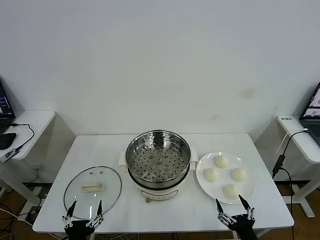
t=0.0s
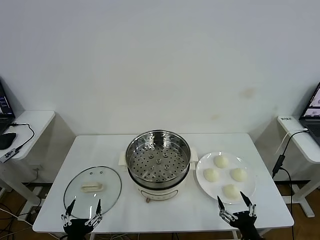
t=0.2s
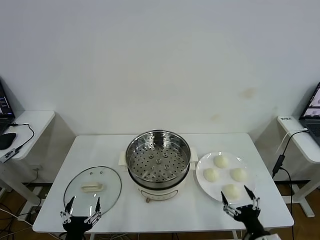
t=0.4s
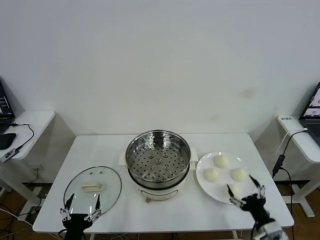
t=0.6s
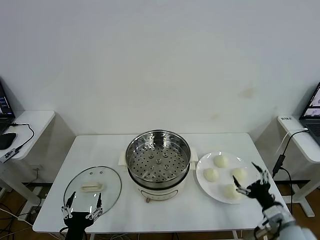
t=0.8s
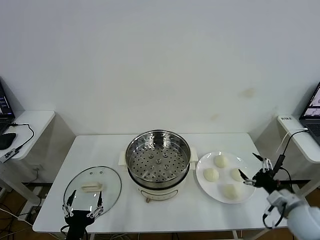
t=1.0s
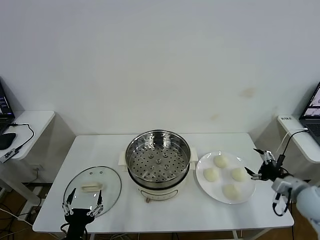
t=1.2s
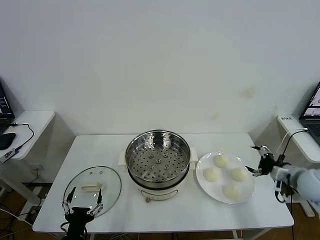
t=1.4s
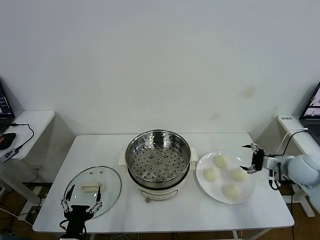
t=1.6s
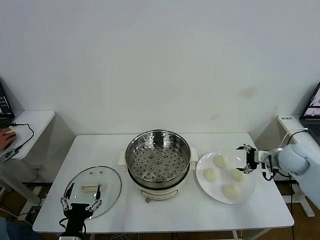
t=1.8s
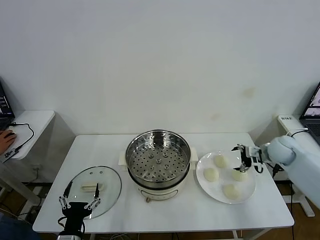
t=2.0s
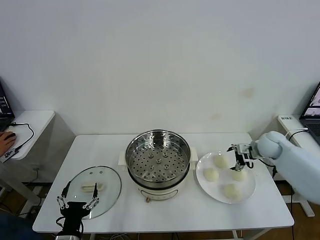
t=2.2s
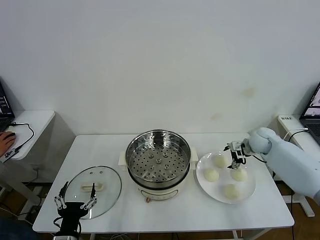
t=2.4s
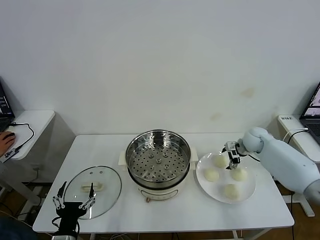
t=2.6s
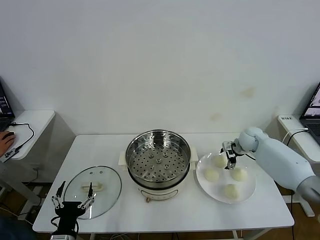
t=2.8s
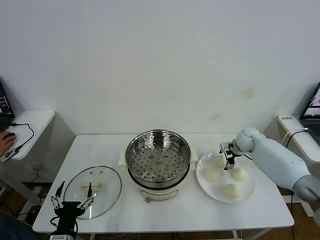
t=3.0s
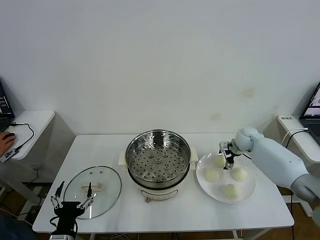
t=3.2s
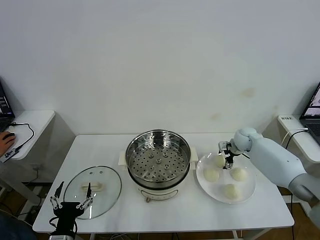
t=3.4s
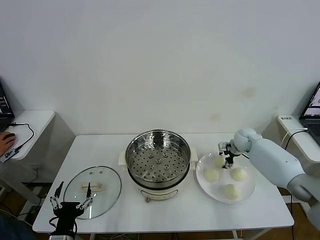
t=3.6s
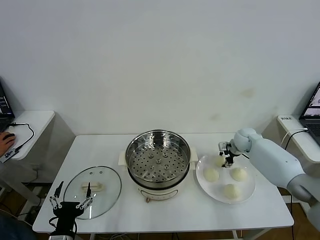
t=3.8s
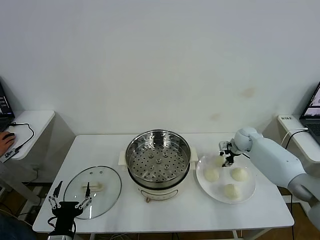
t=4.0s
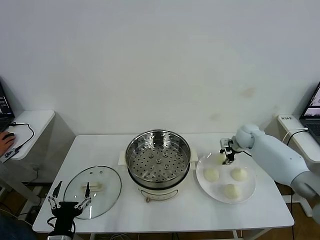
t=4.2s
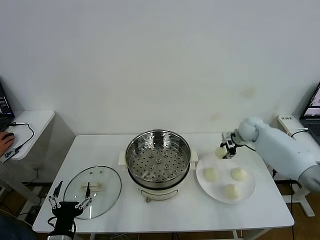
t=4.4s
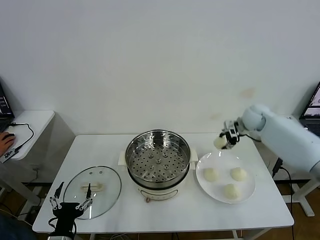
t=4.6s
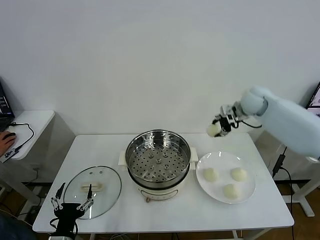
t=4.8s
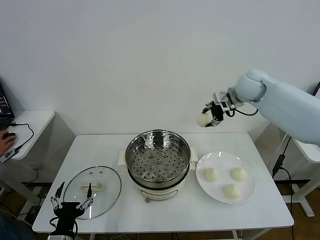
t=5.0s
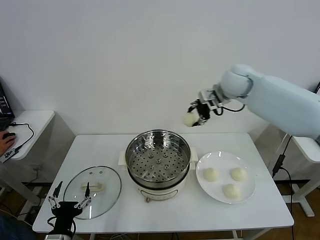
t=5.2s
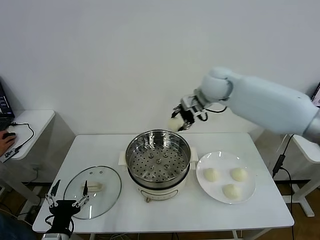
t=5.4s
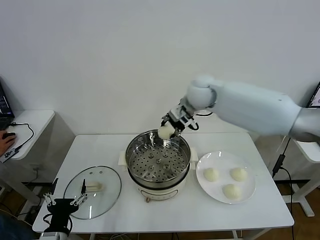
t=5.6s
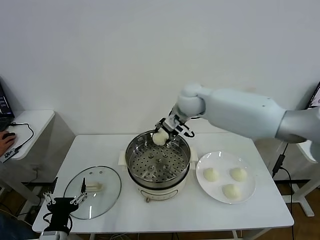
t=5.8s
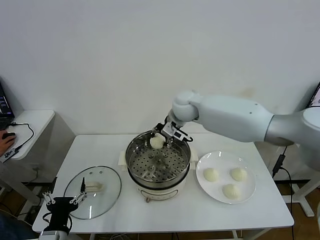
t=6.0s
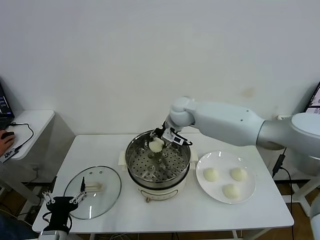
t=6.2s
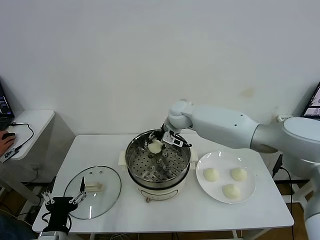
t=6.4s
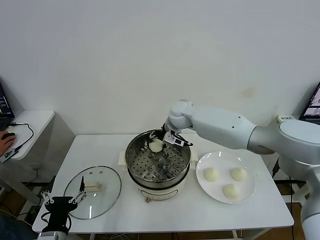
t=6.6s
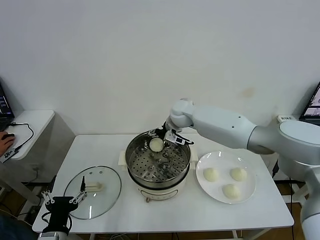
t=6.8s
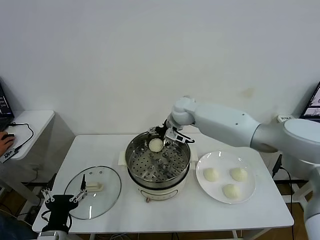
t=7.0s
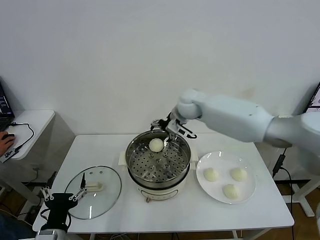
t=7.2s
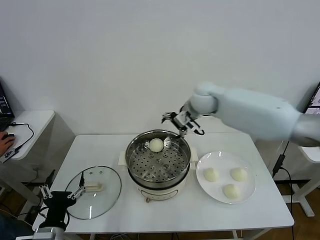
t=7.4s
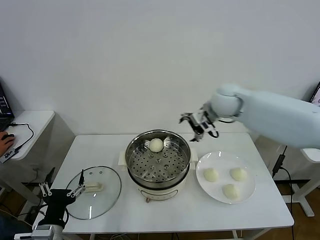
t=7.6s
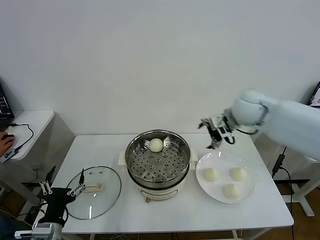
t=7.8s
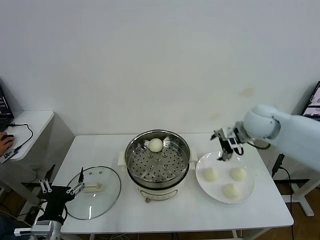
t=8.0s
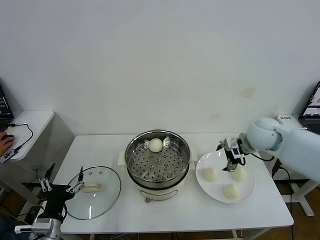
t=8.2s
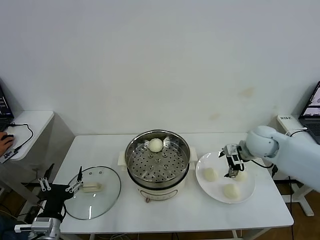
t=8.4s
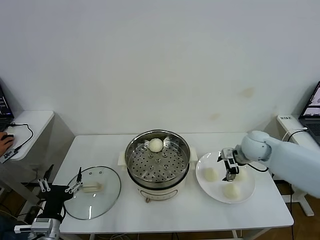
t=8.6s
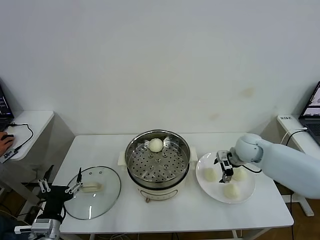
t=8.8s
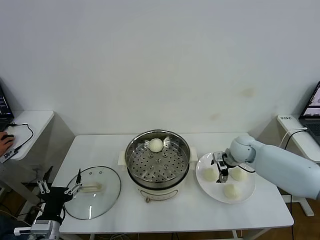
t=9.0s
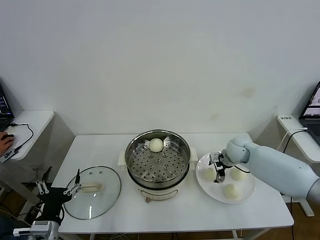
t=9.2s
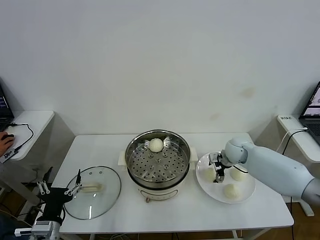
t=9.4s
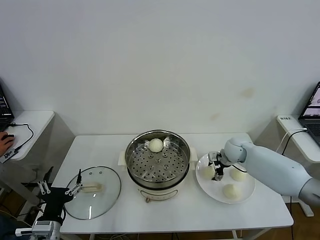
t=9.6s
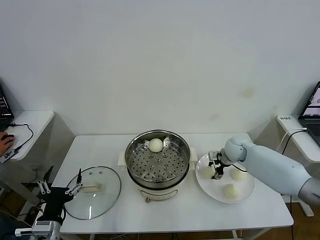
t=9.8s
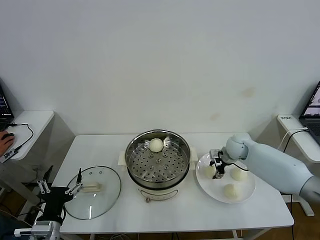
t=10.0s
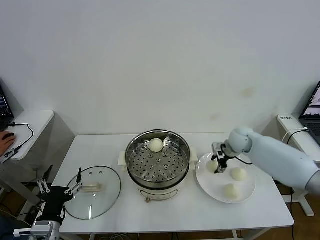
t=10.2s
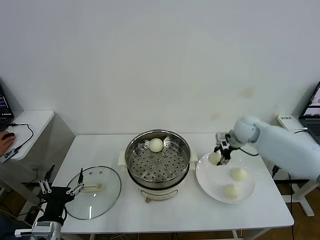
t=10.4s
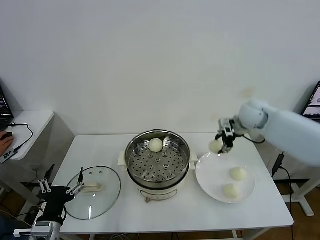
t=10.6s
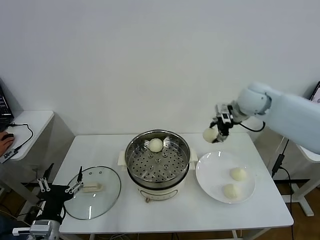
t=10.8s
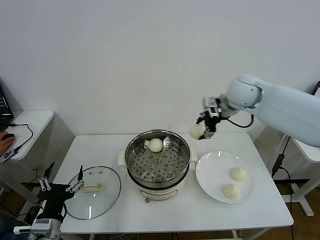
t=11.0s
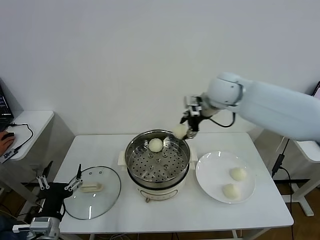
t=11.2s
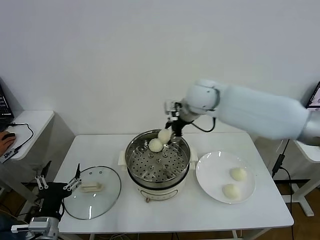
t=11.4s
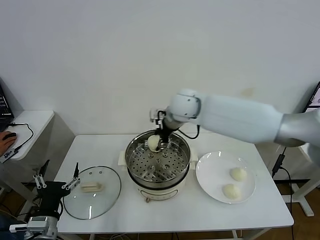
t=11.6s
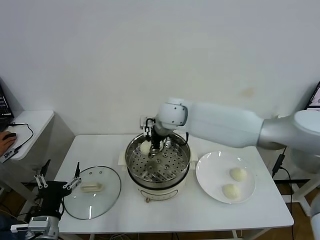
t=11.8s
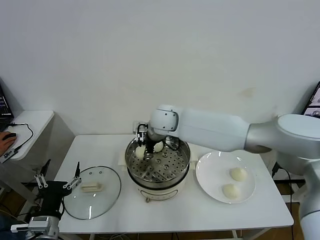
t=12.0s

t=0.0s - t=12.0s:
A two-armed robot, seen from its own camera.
Task of the whole recording: take steamed baozi put them in steamer then cover it.
Step, t=0.0s - t=4.4s: Grasp the baozi in the plate with right gripper.
Step, t=4.6s - t=6.6s: Place the baozi on the steamer with right gripper.
Step, t=6.8s - t=9.8s: Grasp the baozi in the plate with right gripper.
t=1.6s - t=3.0s: The right gripper travels forward and to the left by approximately 15 cm.
t=3.0s - t=4.4s: The right gripper travels upward by some 10 cm, and closes.
t=4.4s - t=6.0s: The right gripper is displaced to the left by some 30 cm.
t=6.0s - t=7.6s: The right gripper shifts about 15 cm to the right, and opens.
t=7.6s - t=9.0s: The right gripper is displaced downward by about 20 cm.
t=9.0s - t=10.4s: The right gripper shifts about 10 cm upward, and closes.
t=10.4s - t=12.0s: The right gripper moves to the left, about 30 cm.

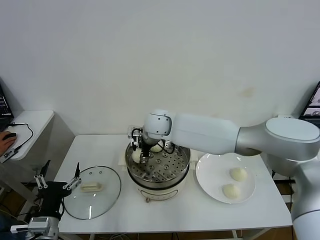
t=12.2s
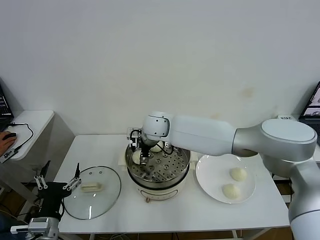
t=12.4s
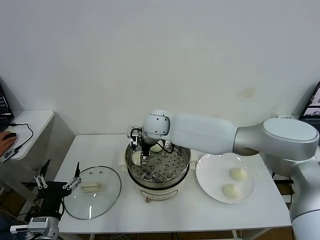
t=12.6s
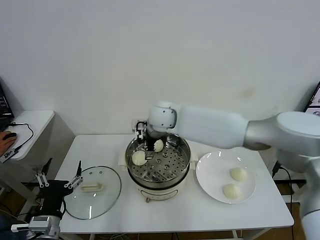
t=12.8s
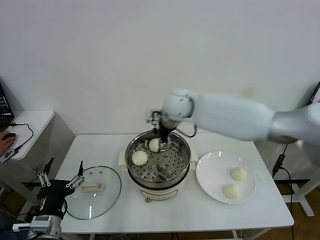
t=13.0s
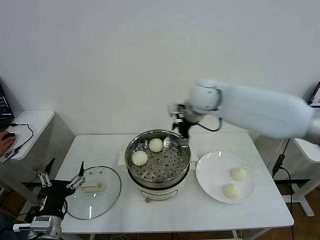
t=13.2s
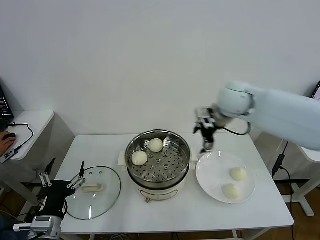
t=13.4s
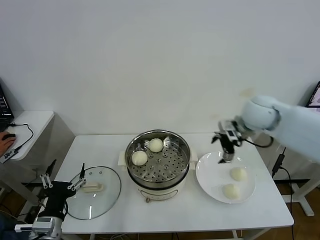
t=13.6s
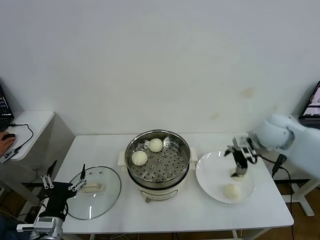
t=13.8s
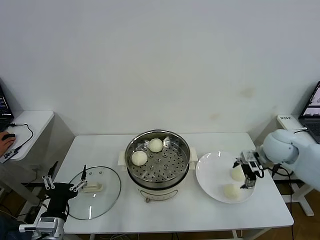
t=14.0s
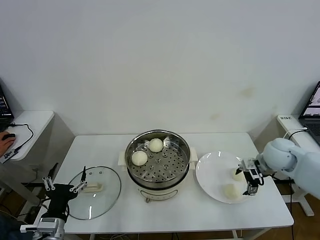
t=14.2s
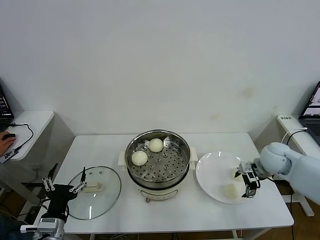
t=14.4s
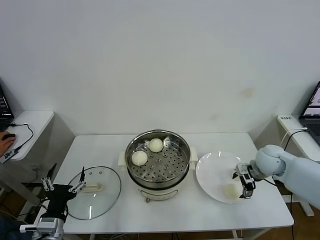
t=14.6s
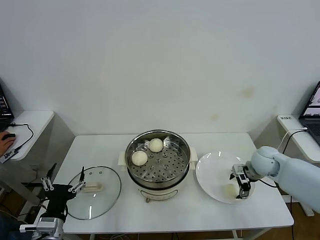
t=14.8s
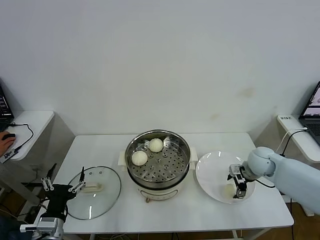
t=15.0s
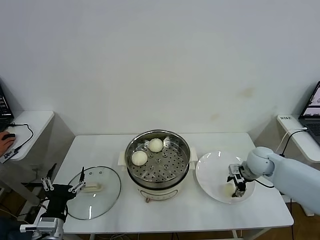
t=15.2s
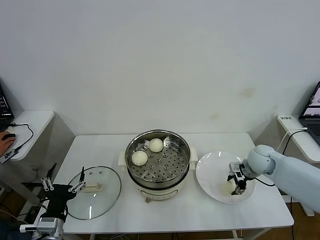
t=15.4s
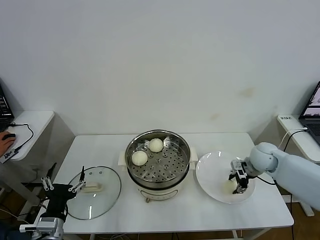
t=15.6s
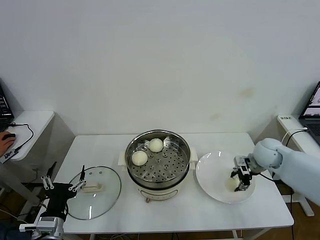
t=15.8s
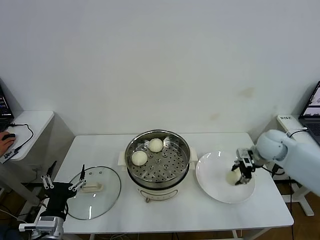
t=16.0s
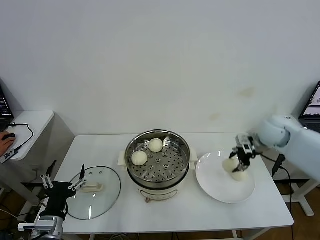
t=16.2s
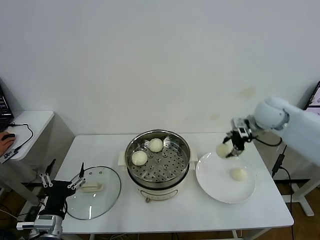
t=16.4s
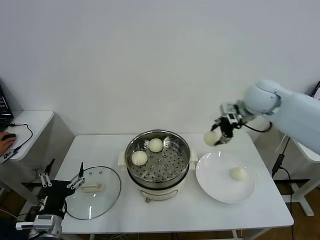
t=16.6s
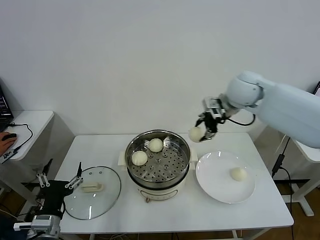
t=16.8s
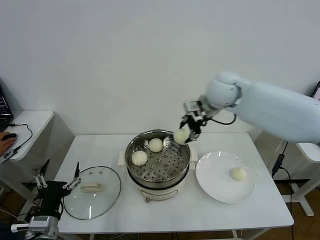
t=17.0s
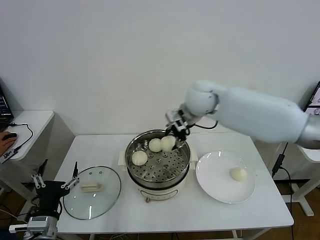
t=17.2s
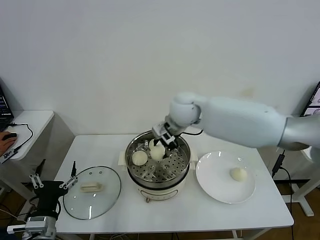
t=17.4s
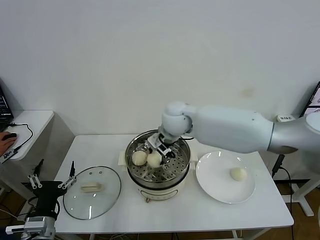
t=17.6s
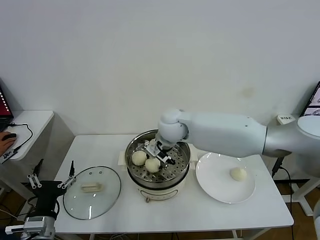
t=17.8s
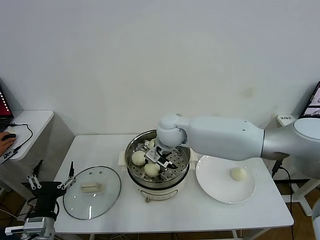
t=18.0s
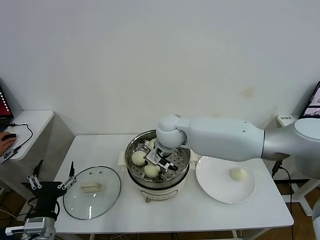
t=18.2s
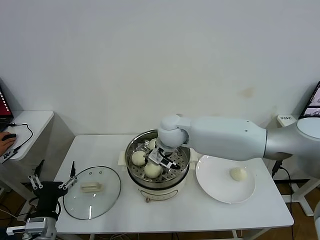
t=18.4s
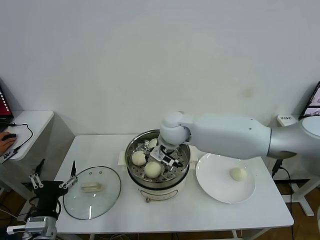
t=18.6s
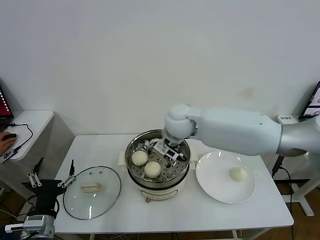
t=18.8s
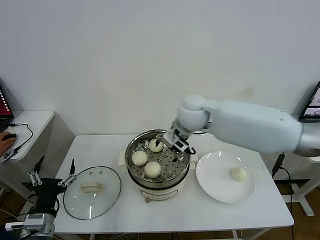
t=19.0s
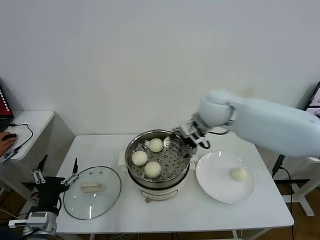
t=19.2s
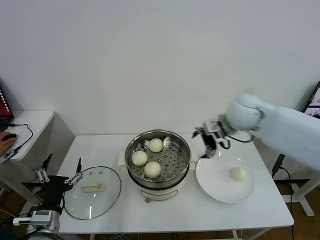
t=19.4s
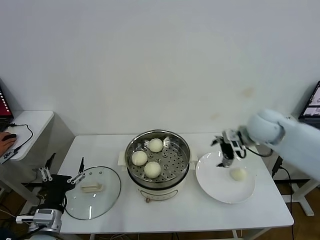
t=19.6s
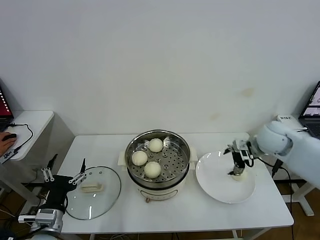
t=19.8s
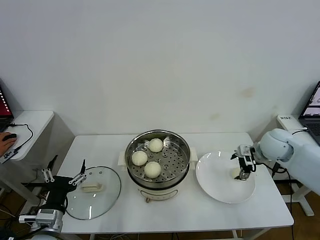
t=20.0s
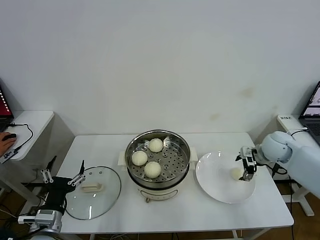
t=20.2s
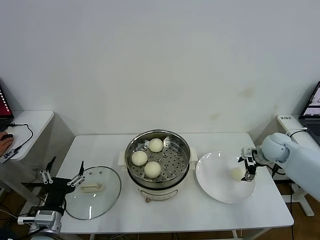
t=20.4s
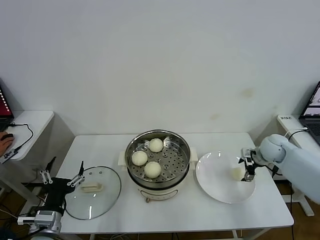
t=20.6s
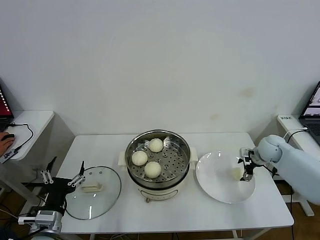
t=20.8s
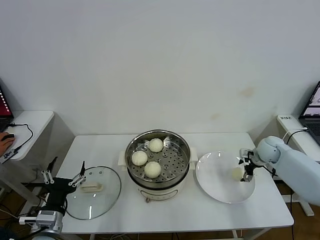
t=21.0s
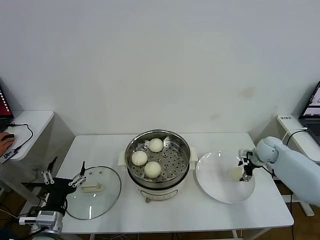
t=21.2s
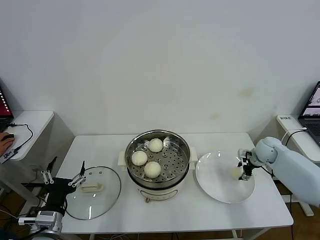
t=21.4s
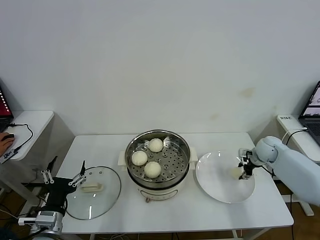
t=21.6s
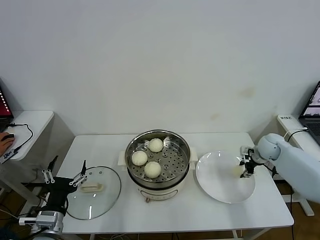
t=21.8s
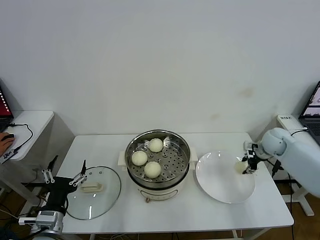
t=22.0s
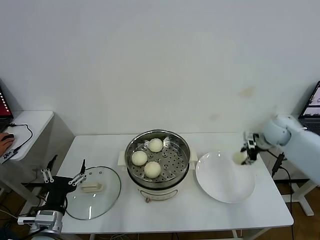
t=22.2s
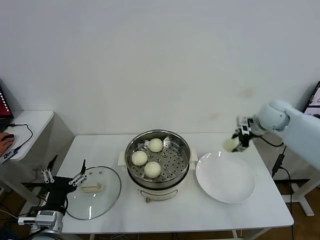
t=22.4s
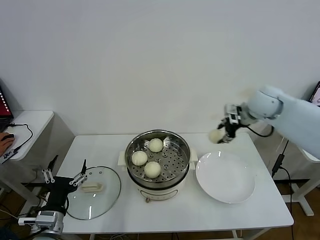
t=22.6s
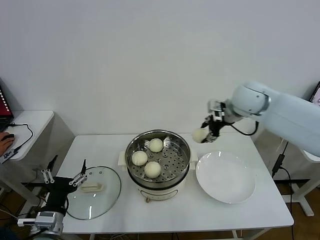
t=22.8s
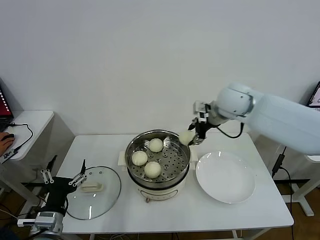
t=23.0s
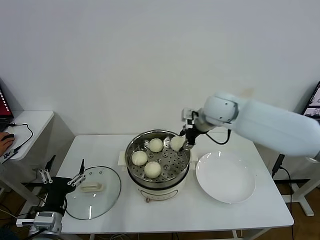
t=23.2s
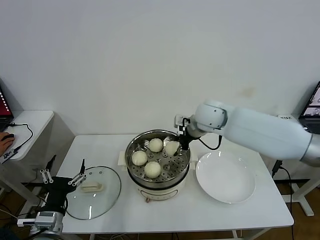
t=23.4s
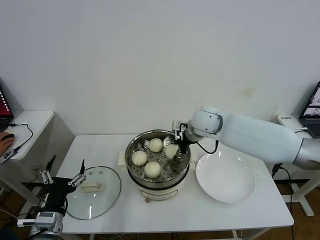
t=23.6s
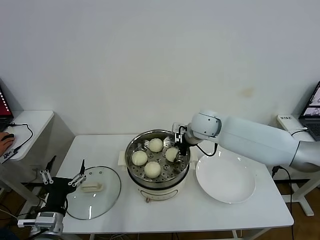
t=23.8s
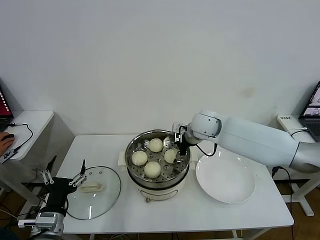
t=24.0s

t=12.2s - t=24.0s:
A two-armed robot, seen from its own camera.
Task of the whole recording: take steamed baozi put them in steamer then cover it.
Step, t=12.6s - t=15.4s: Grasp the baozi in the plate with right gripper.
Step, t=15.6s - t=18.4s: Place the baozi on the steamer with right gripper.
Step, t=18.6s - t=21.6s: Grasp the baozi in the plate with right gripper.
Step, t=21.8s - t=23.8s: Place the baozi on the steamer with right gripper.
t=12.2s - t=13.6s: The right gripper is displaced to the right by approximately 30 cm, and opens up.
t=13.6s - t=15.2s: The right gripper travels downward by some 20 cm, and closes its fingers.
t=15.2s - t=16.6s: The right gripper travels upward by roughly 25 cm.
t=16.6s - t=18.2s: The right gripper shifts approximately 25 cm to the left and downward.
t=18.2s - t=19.6s: The right gripper is displaced to the right by roughly 30 cm, and opens up.
t=19.6s - t=21.0s: The right gripper goes some 20 cm downward and to the right.
t=21.0s - t=22.6s: The right gripper moves upward and to the left, approximately 25 cm, and closes its fingers.
t=22.6s - t=24.0s: The right gripper is displaced to the left and downward by roughly 20 cm, and opens up.
